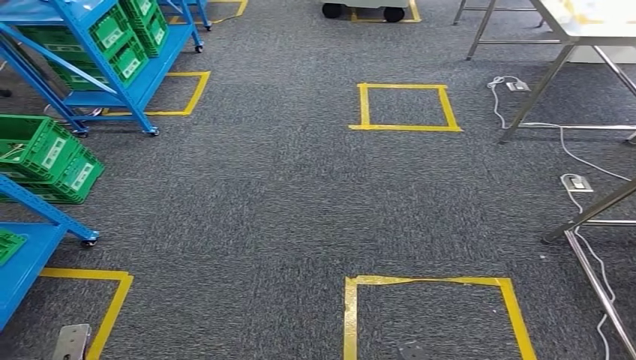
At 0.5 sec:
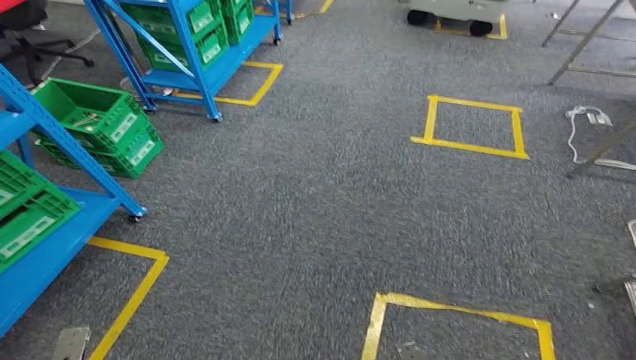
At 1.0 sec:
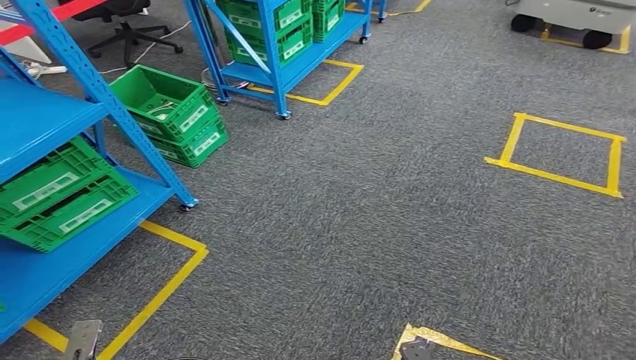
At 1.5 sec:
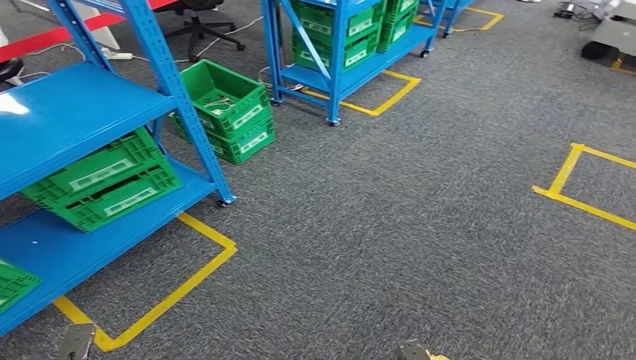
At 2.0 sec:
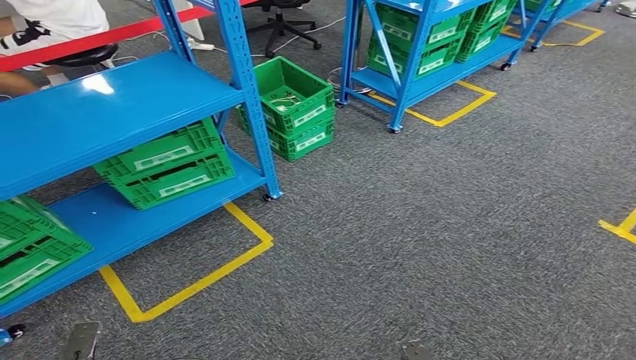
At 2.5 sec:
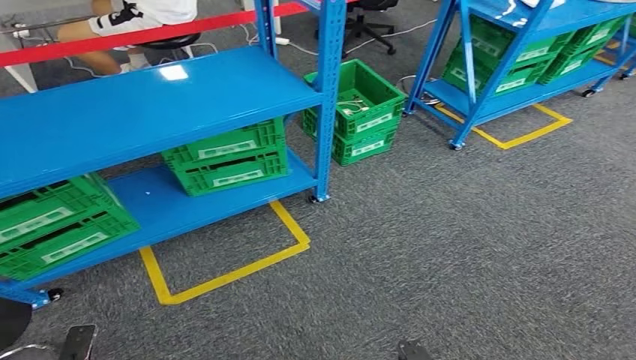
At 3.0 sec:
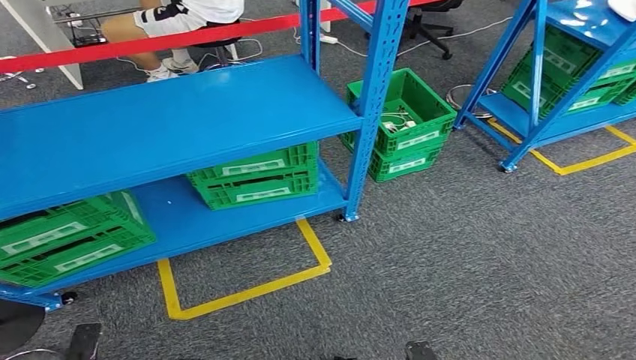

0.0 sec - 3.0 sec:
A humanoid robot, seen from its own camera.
Step, 0.0 sec - 3.0 sec: Return to the initial position at the workbench.
